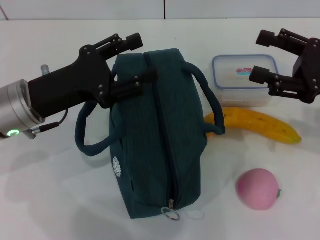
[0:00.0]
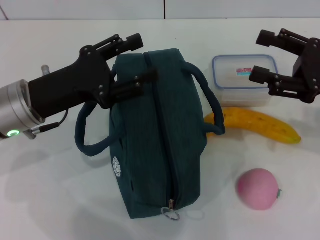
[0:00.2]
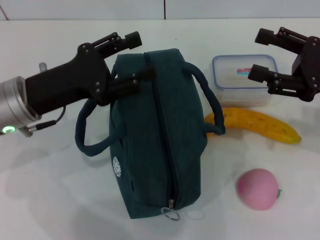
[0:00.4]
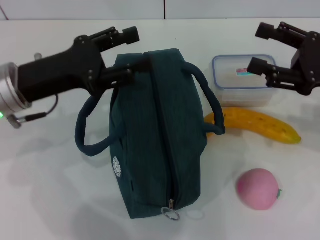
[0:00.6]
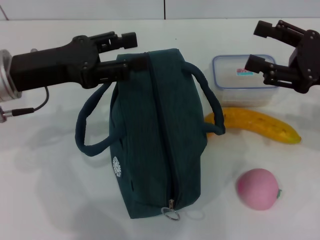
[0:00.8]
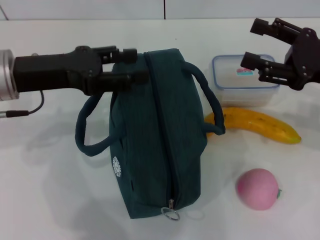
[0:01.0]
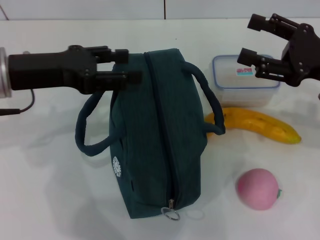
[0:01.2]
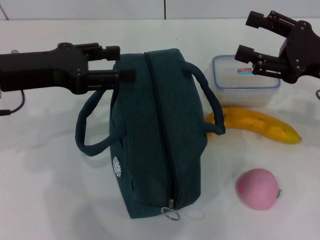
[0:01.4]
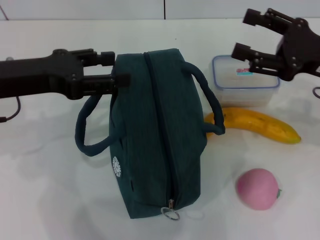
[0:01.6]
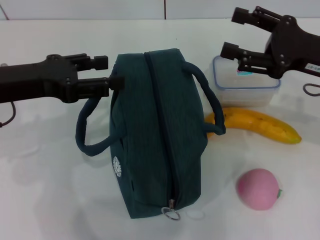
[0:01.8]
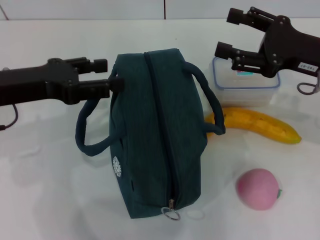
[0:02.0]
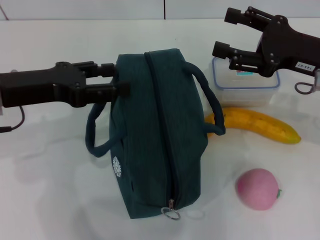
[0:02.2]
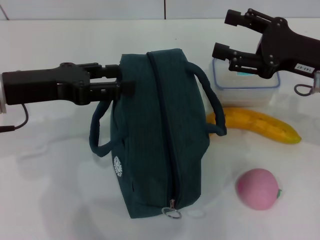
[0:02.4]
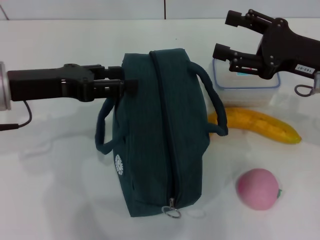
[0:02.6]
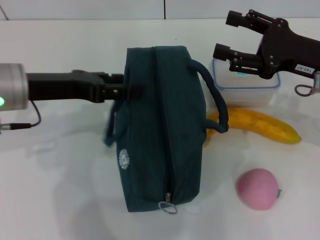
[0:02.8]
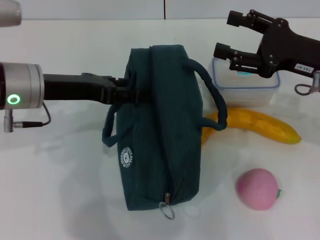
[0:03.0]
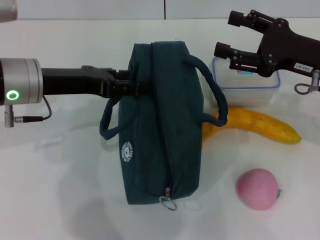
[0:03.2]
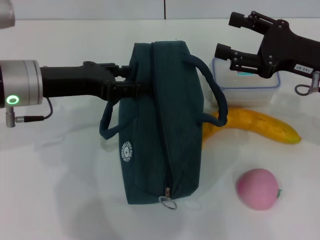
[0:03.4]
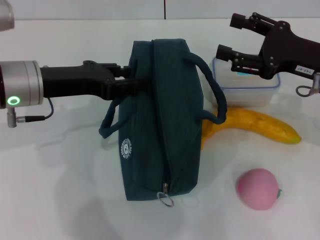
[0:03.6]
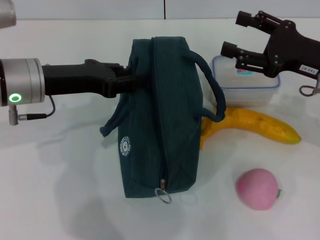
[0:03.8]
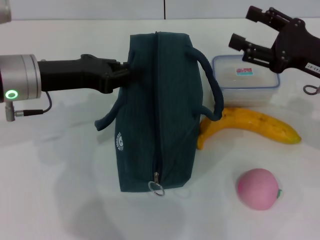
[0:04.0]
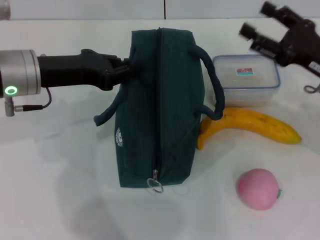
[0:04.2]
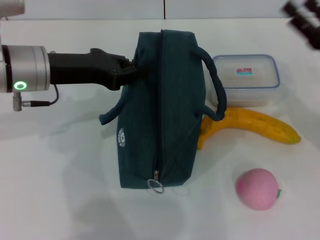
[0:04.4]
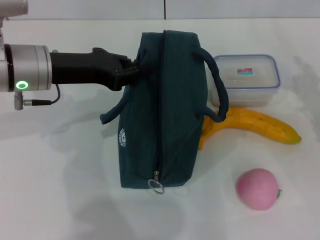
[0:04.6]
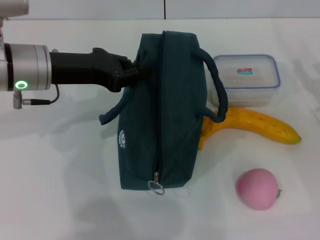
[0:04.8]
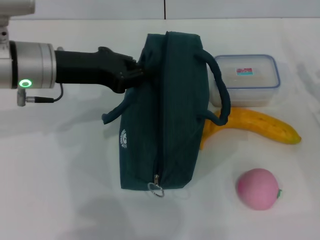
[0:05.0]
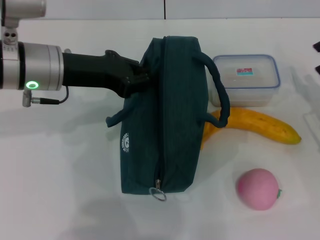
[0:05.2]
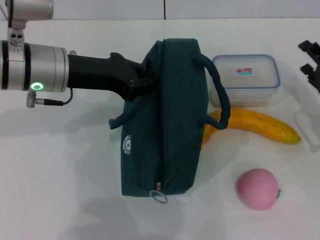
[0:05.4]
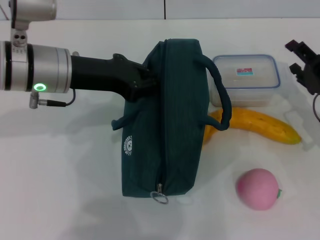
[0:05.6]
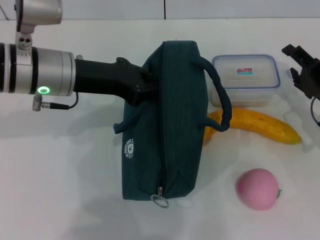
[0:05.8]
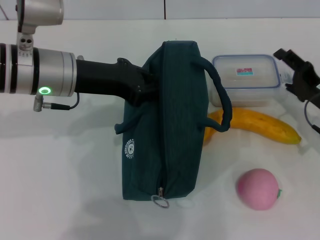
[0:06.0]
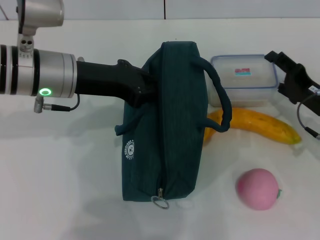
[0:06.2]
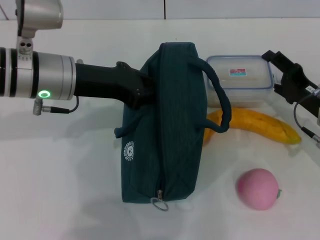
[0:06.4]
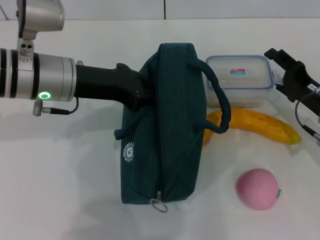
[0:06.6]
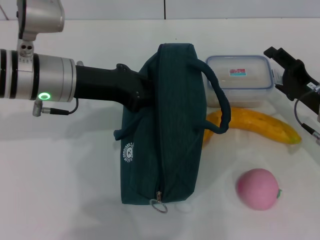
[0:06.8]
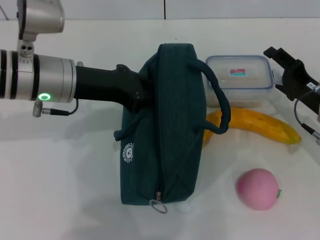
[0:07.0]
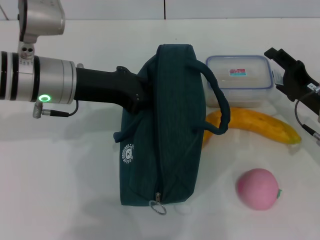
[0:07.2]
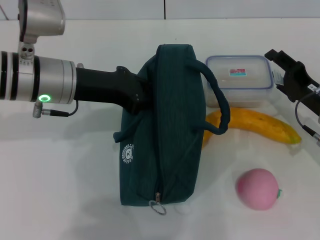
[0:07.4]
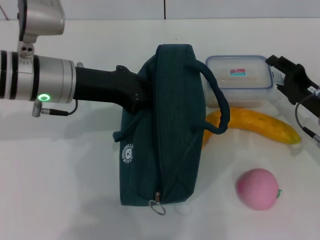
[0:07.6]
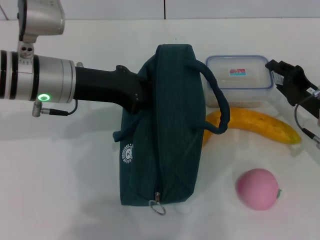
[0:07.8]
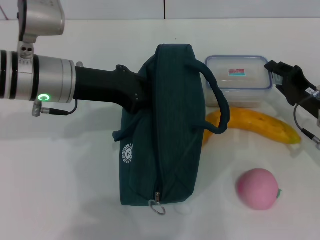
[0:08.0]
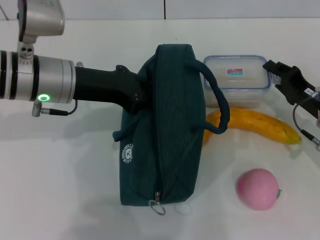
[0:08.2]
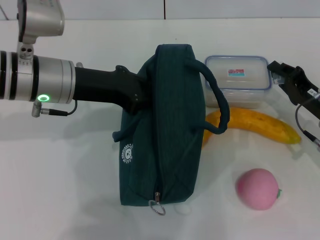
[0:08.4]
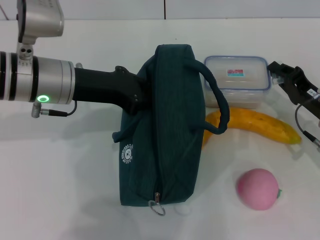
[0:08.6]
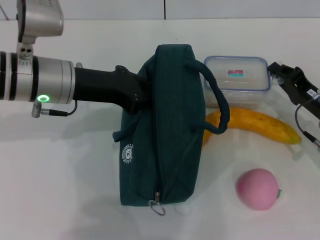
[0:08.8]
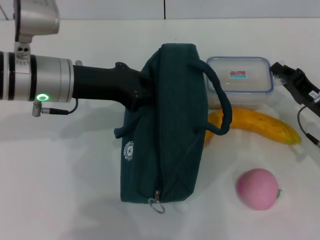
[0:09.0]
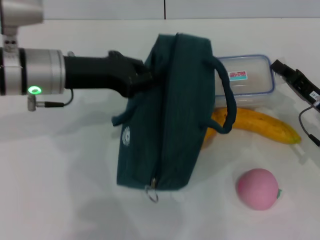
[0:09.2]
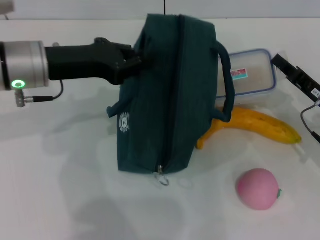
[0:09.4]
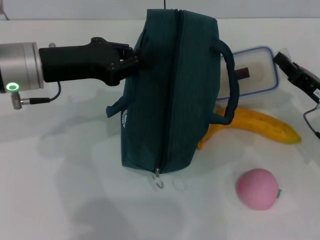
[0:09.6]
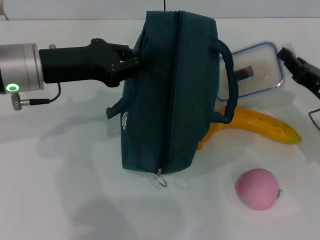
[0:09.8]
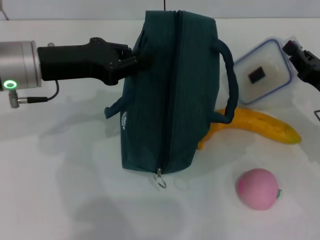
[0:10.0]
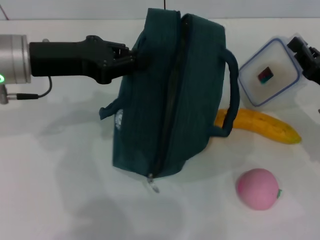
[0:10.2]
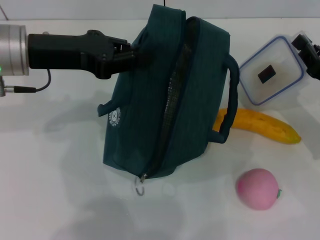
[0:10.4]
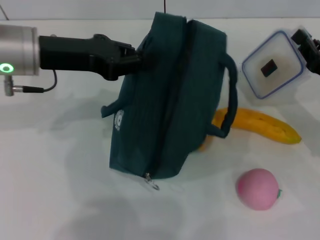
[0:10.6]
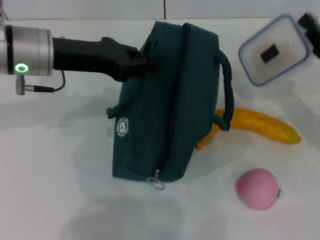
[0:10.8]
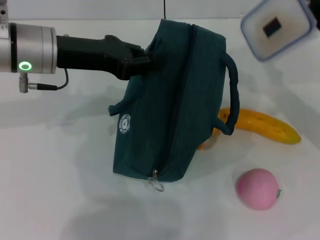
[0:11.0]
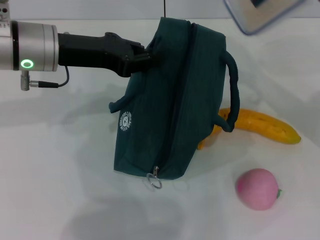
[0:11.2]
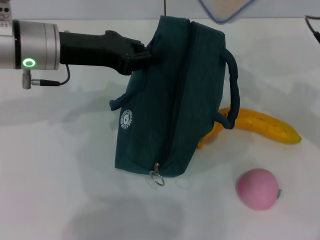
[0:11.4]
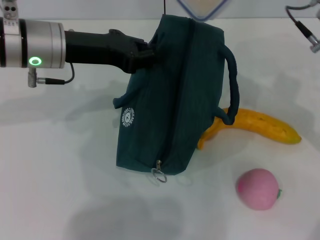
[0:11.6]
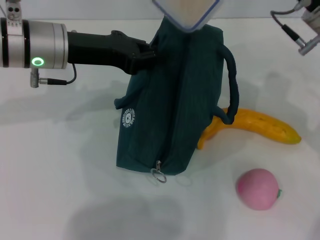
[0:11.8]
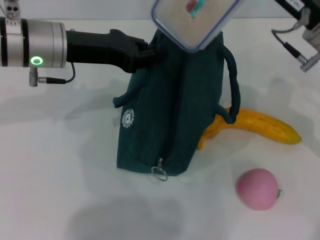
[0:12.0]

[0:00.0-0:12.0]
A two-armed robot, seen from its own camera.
Step, 0:00.0 to 0:04.4: Hold the lunch bag with your left hand.
Step, 0:04.6 to 0:09.0: Pick up the lunch box with your right hand.
0:00.0 to 0:01.6: The left gripper heads upward, covering about 5 cm.
0:01.6 to 0:03.0: The left gripper moves approximately 5 cm.
0:03.0 to 0:04.4: The right gripper goes roughly 5 cm downward. Meanwhile the left gripper closes up.
0:04.4 to 0:06.0: The right gripper shifts about 5 cm downward.
0:06.0 to 0:07.6: The grippers make only small movements.
0:07.6 to 0:09.0: The right gripper closes up.
0:09.0 to 0:10.4: The left gripper ends up some 5 cm from where it was.
0:10.4 to 0:12.0: The right gripper is displaced upward, to the left and forward by about 15 cm.

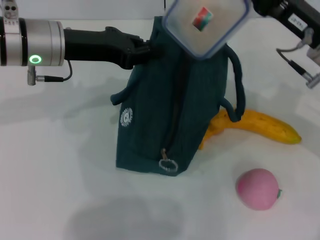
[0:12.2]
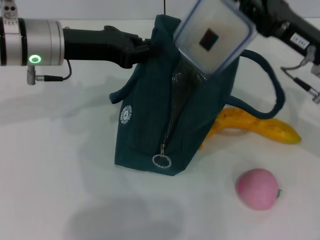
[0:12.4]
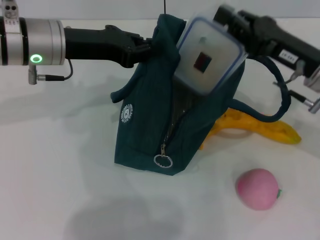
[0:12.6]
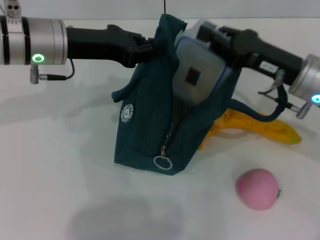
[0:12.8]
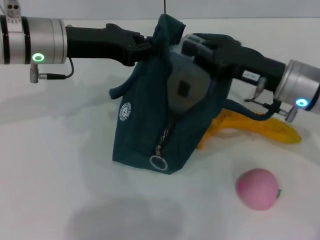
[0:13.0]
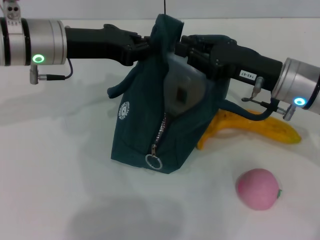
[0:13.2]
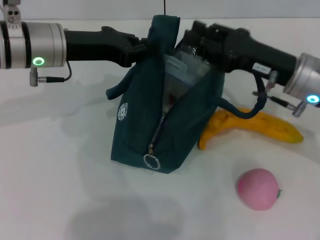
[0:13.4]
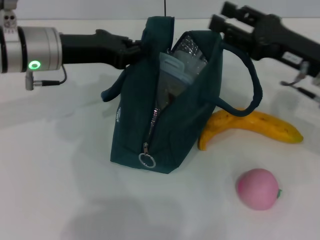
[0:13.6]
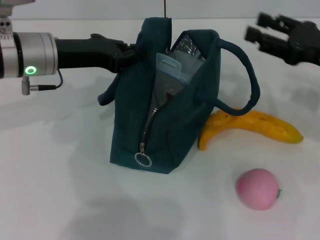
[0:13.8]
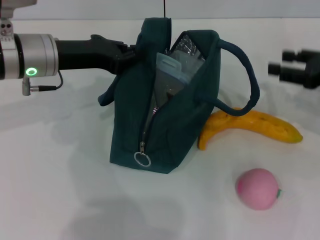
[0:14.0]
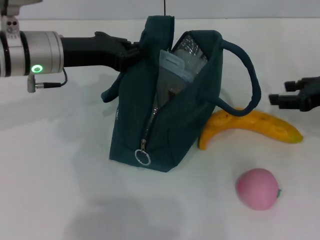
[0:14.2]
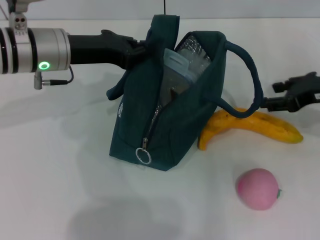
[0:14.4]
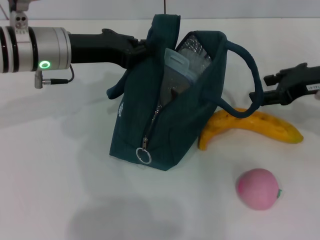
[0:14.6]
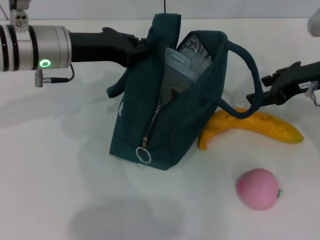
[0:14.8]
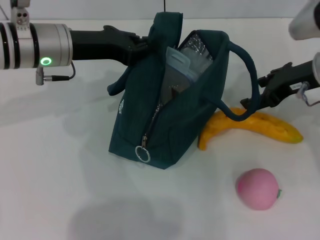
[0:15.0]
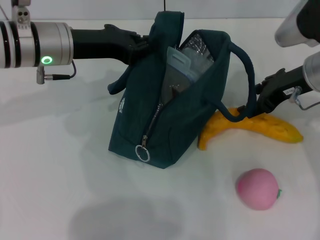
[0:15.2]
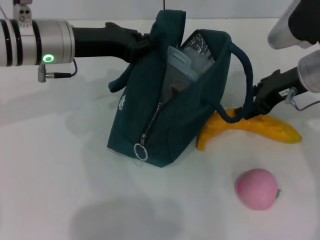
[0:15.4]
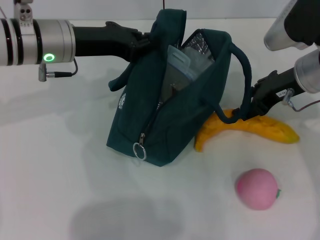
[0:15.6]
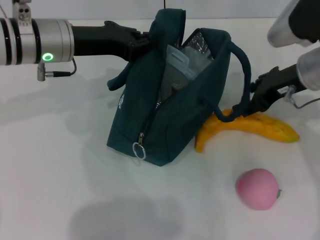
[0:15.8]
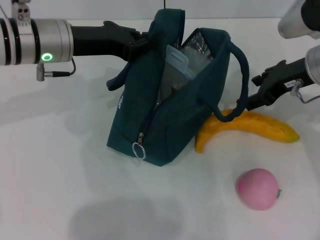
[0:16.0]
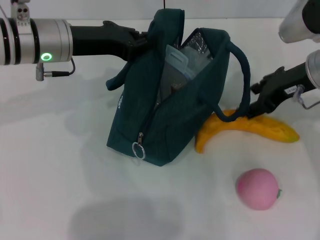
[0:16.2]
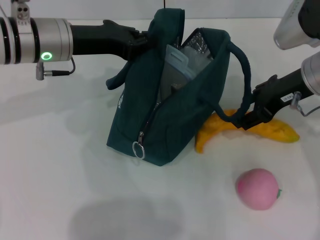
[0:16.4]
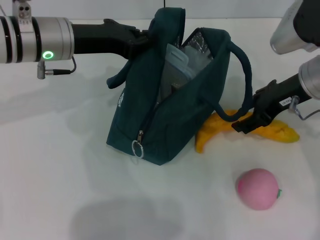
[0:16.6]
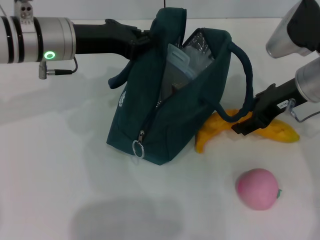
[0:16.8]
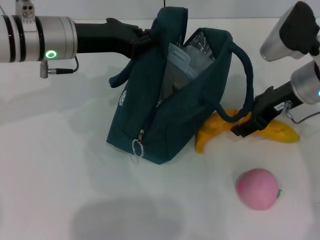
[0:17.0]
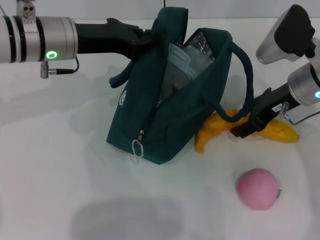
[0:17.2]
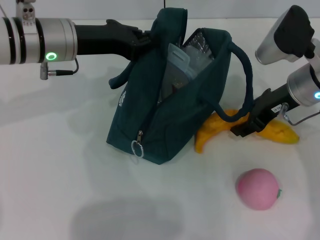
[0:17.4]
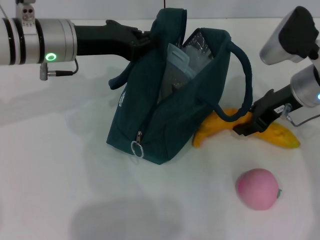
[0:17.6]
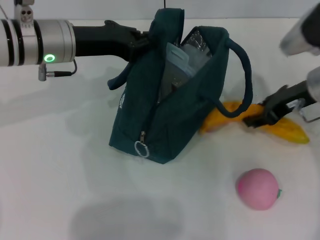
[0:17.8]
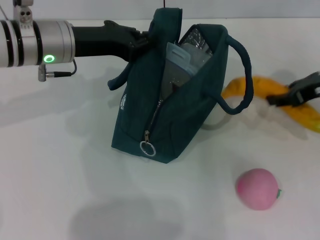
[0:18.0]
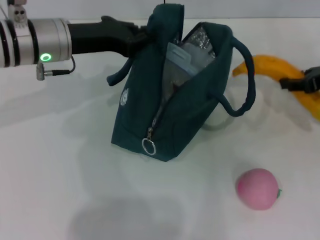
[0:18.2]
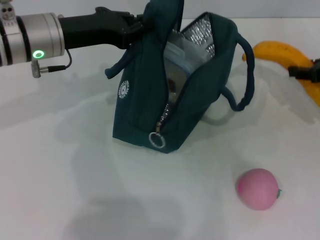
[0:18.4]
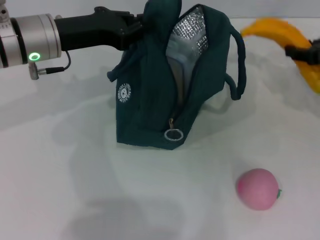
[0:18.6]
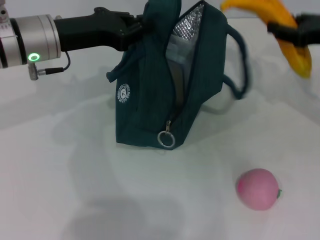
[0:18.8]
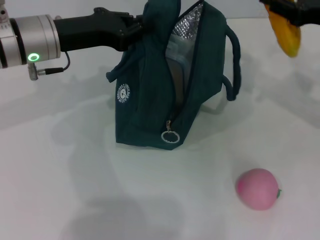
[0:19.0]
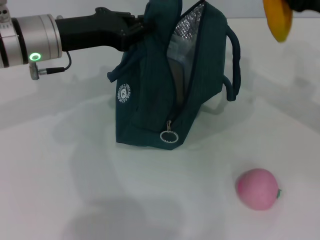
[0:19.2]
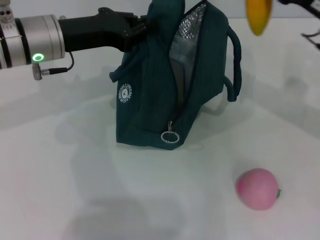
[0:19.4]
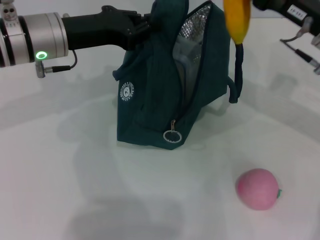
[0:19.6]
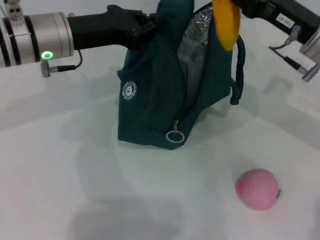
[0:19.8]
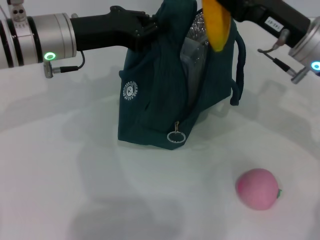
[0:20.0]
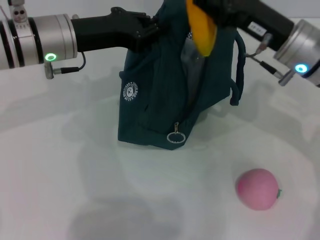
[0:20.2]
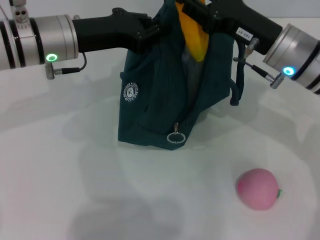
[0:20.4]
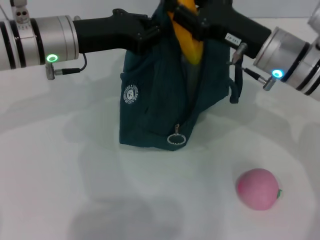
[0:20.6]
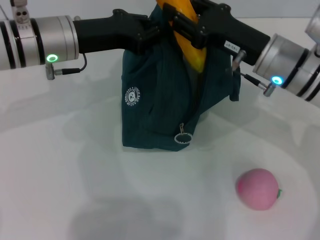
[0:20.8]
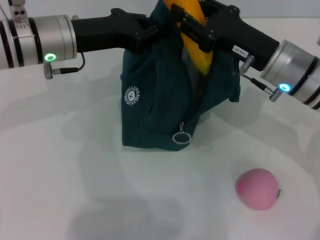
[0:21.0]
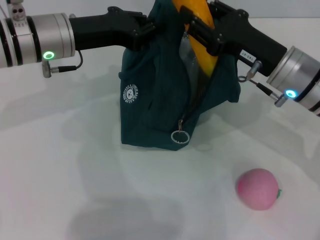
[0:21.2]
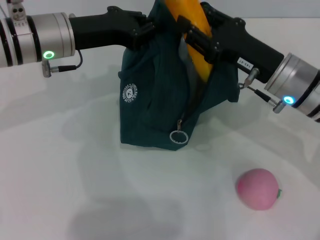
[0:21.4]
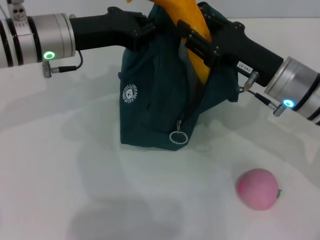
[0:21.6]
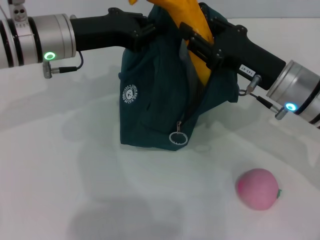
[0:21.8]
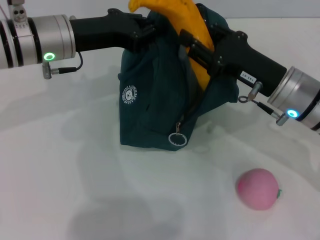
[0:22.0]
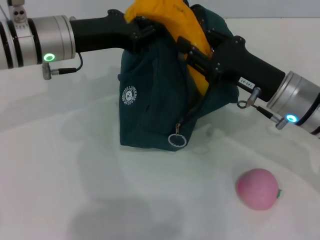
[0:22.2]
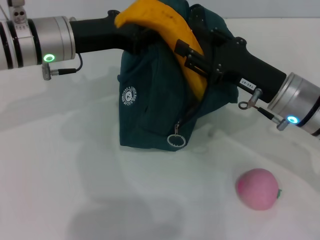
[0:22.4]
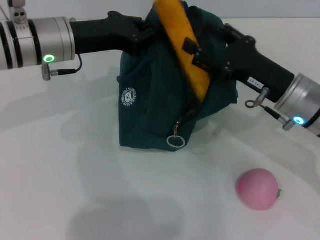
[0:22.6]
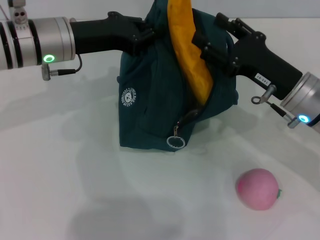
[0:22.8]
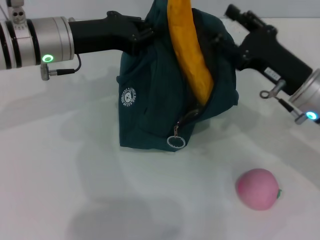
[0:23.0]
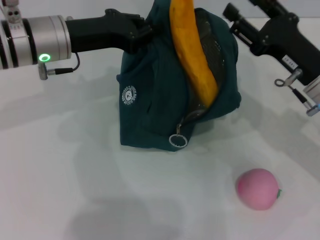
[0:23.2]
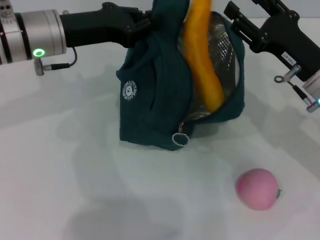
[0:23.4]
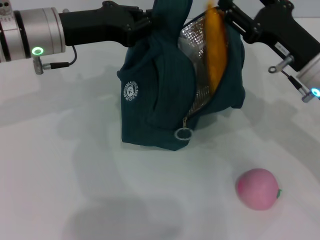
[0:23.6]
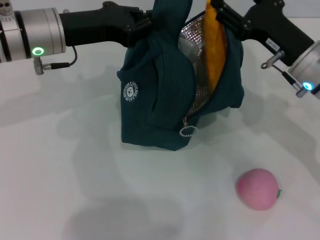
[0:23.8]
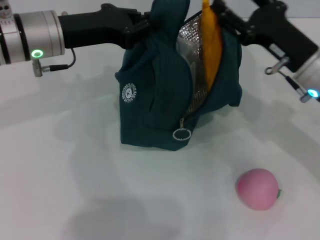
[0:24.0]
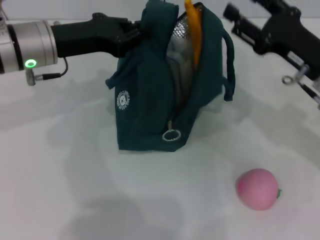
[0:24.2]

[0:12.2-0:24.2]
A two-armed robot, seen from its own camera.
Step, 0:13.6 to 0:17.4: Take the banana with your right hand.
Step, 0:17.6 to 0:23.6: Put the banana into the lunch bag with your right hand.
0:12.2 to 0:13.8: The right gripper moves to the right, some 5 cm, and opens.
0:13.8 to 0:15.2: The right gripper moves to the left, some 5 cm.
0:15.2 to 0:16.6: The grippers stay close to where they were, moving slightly.
0:16.6 to 0:18.2: The right gripper moves to the right, some 10 cm, and closes.
0:18.2 to 0:19.8: The right gripper goes some 10 cm to the left.
0:19.8 to 0:21.2: The right gripper changes place by about 5 cm.
0:21.2 to 0:22.6: The grippers move only a little.
0:22.6 to 0:24.2: The right gripper moves about 5 cm.
